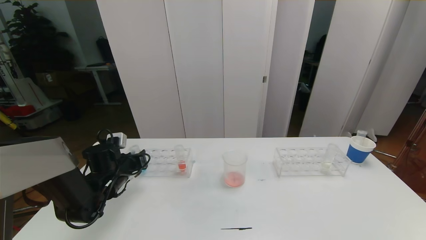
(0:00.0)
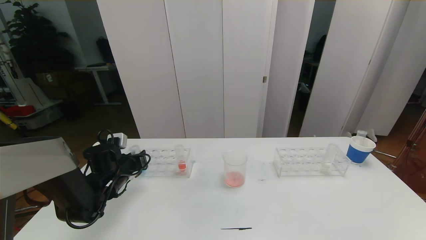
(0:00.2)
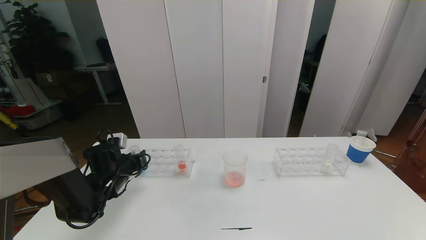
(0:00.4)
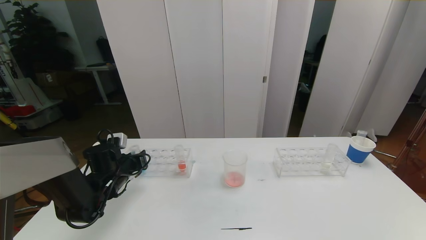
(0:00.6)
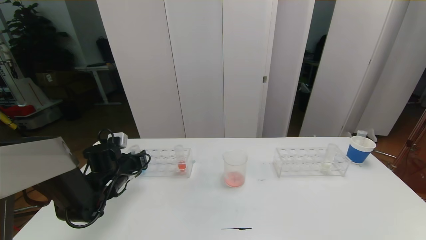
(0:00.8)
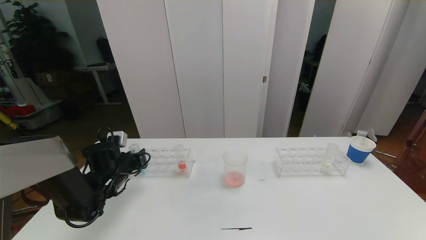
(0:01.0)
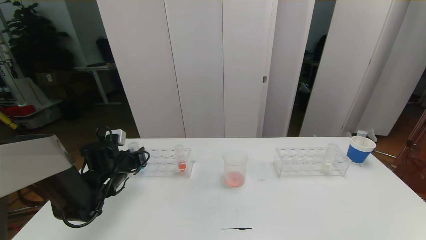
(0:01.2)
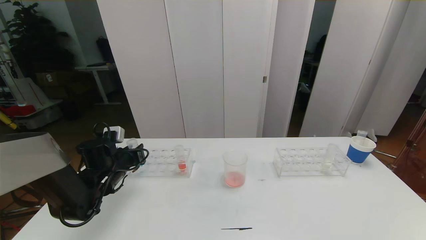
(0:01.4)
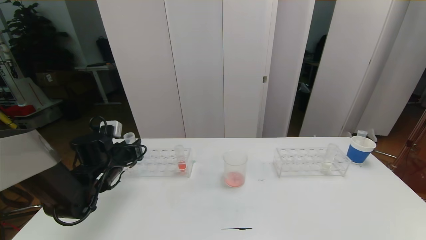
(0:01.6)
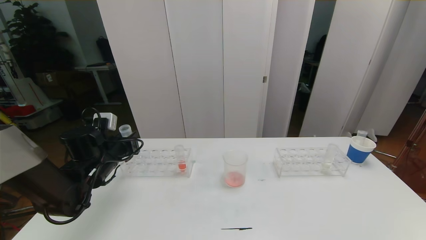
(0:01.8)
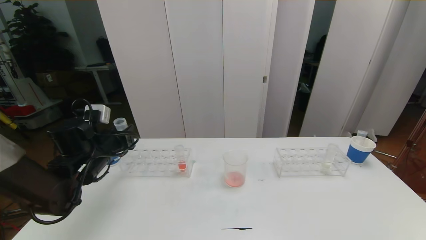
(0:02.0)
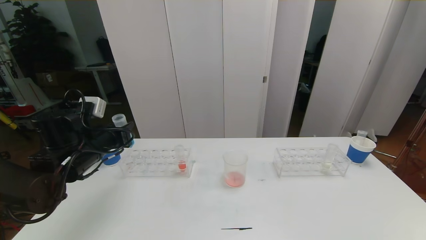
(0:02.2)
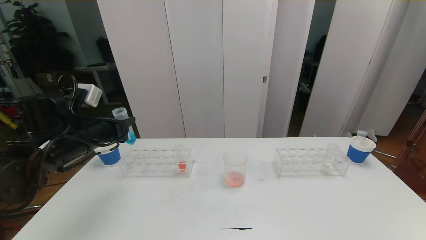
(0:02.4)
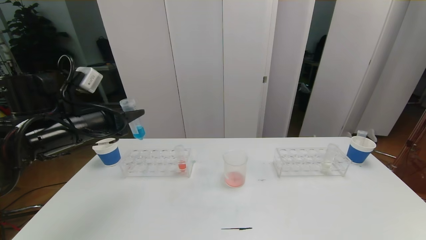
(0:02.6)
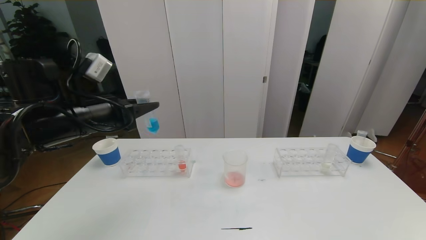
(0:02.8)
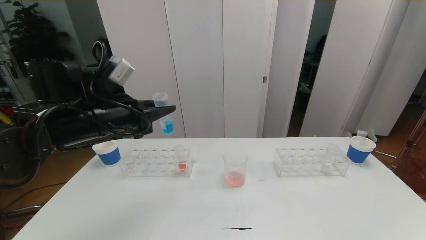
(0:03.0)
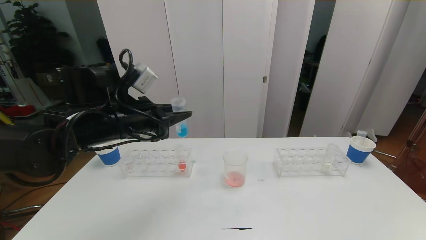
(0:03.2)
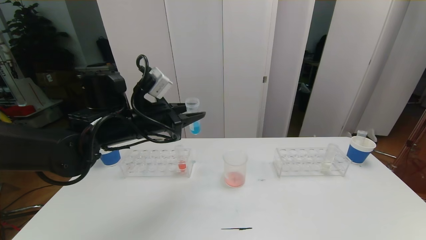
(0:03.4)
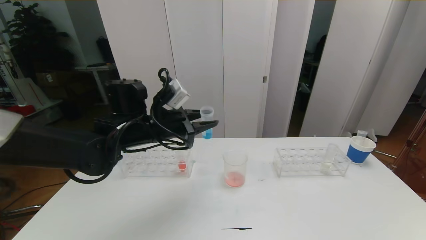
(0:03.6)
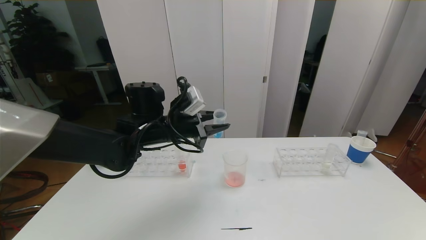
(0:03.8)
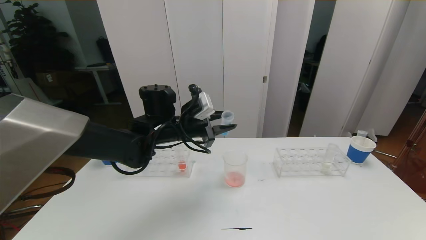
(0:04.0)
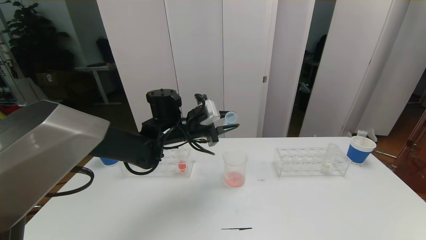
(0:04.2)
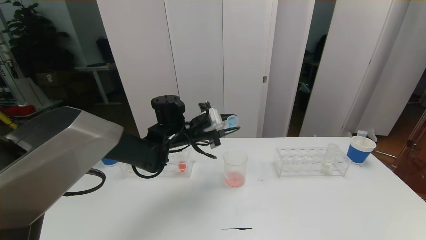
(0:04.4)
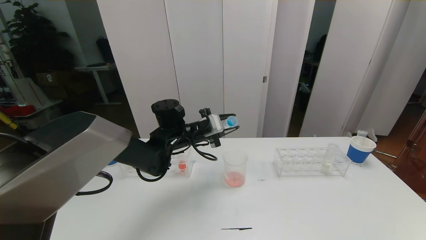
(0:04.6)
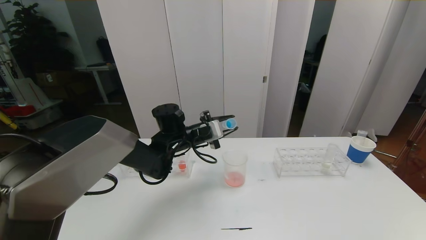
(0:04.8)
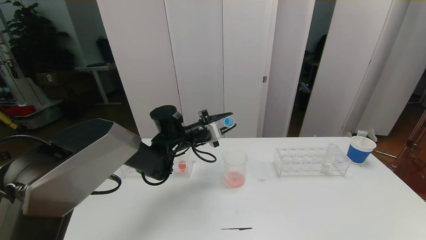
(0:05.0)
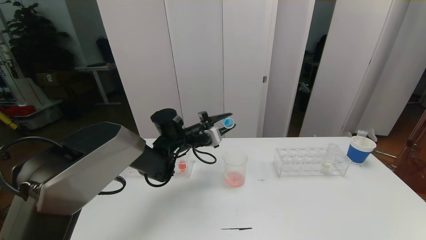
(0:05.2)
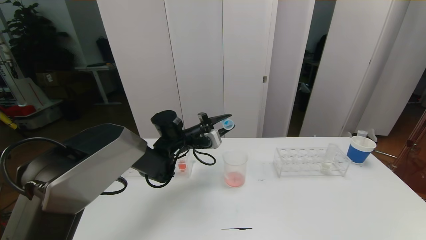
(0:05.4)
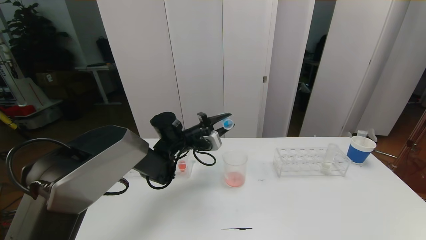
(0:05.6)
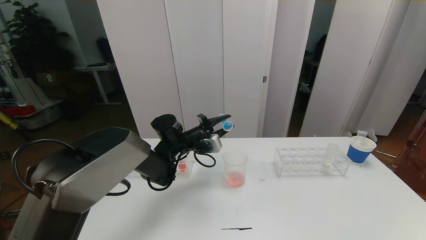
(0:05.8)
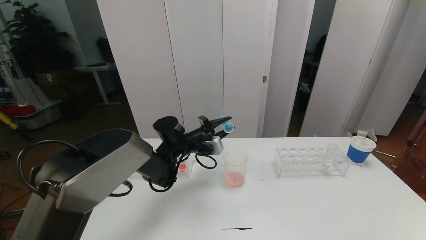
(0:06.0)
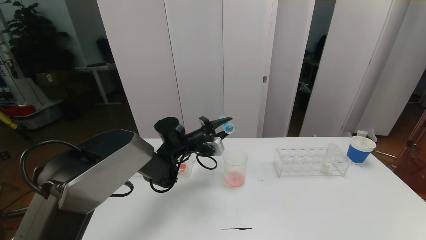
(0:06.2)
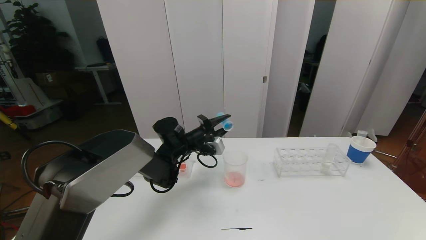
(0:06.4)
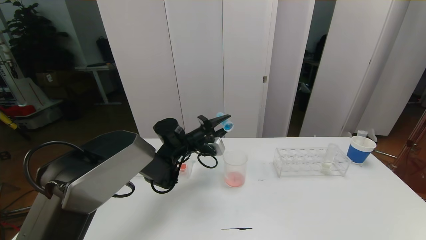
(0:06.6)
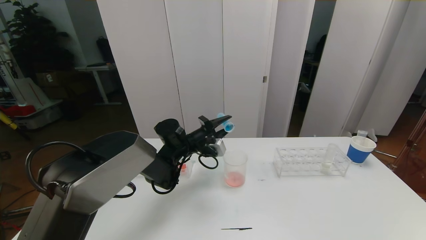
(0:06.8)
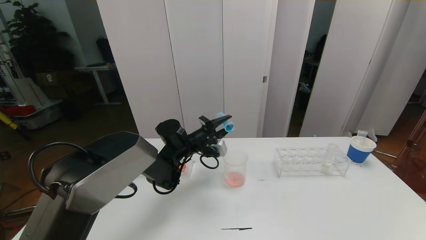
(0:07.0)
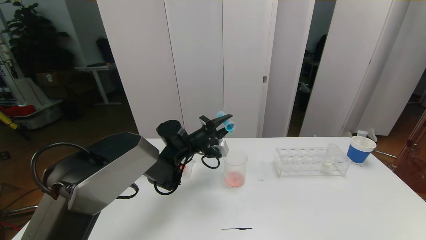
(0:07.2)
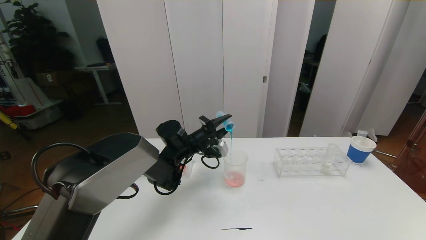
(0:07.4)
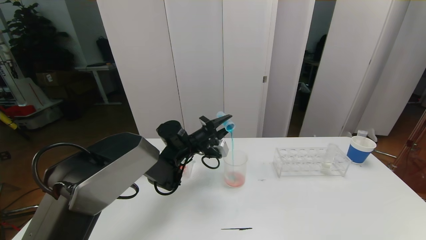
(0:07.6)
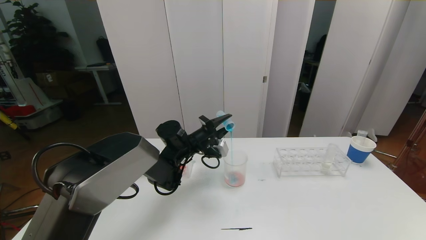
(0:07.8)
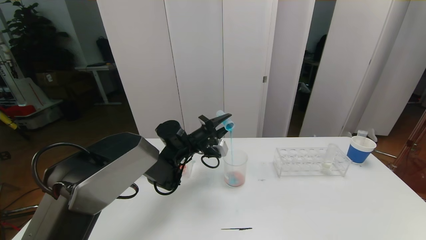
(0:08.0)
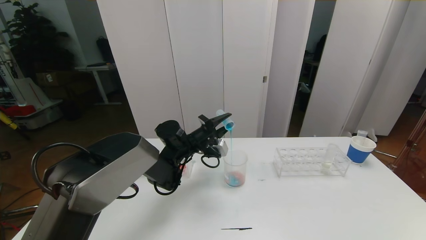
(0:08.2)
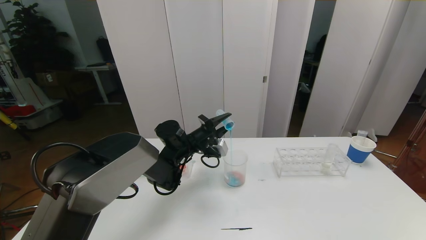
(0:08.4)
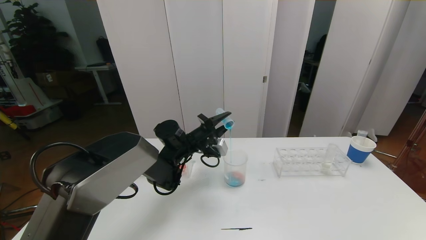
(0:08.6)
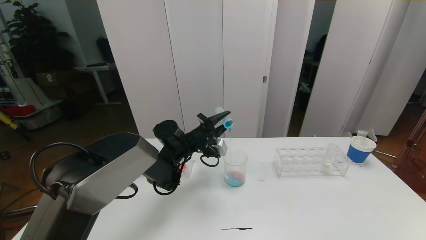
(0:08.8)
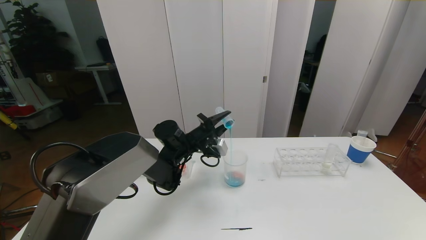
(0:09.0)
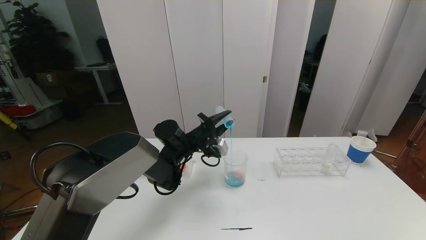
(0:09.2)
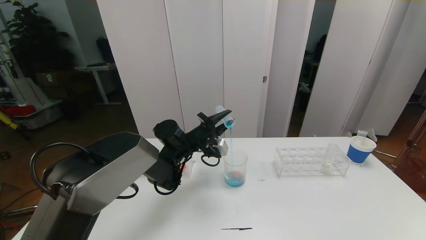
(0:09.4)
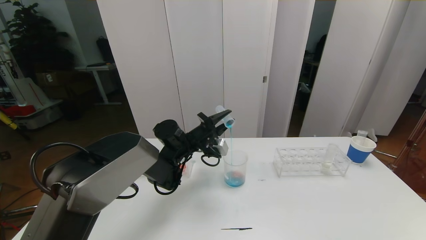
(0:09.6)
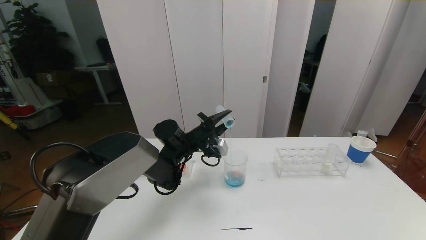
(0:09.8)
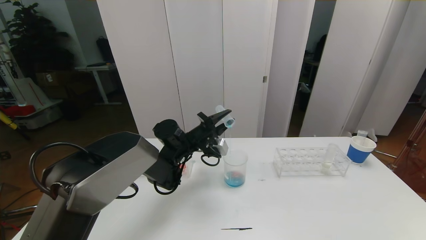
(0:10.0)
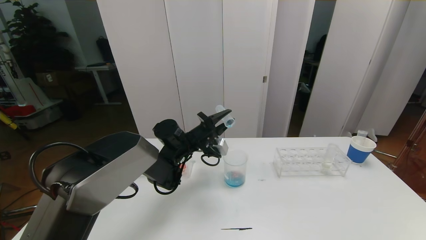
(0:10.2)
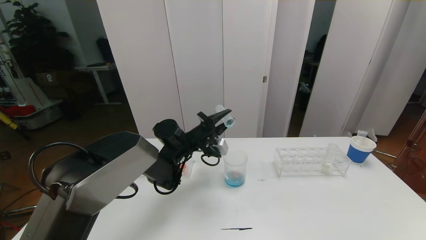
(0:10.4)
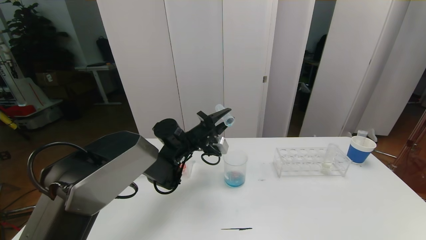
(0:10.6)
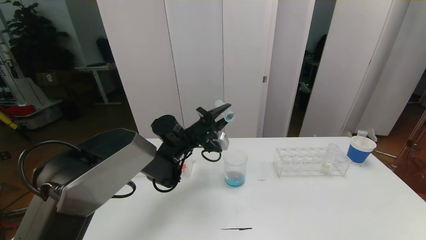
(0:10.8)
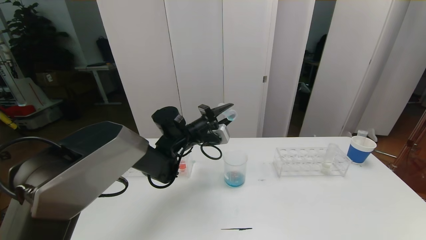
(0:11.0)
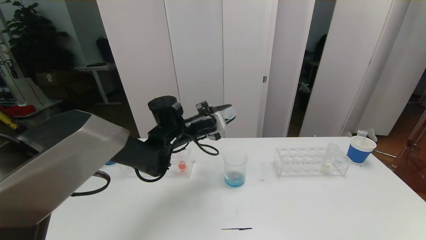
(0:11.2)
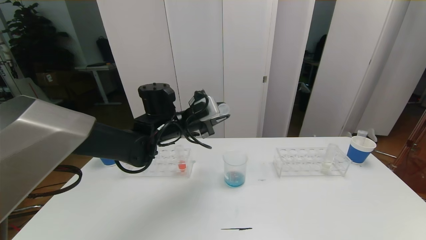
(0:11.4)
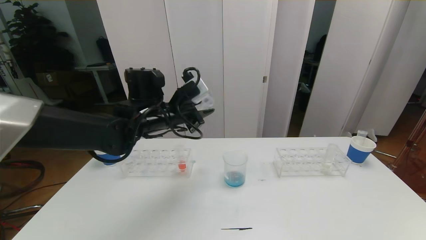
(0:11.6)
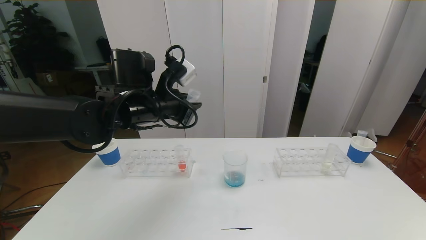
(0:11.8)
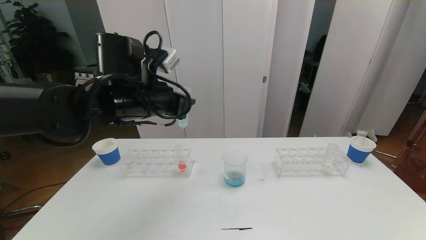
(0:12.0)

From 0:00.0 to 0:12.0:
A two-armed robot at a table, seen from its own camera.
Task of the whole recording: pick up the test tube with red pigment the test tube with blue pigment and the test tube with white pigment by grippers and pour them into the beaker.
From 0:00.0 to 0:01.6: The grippers make only small movements.
From 0:01.6 to 0:03.0: The left gripper moves upward and to the right, about 15 cm.
From 0:03.0 to 0:04.4: The left gripper moves to the right, forward and downward, about 20 cm.
From 0:04.4 to 0:06.0: The left gripper goes about 5 cm downward.
From 0:06.0 to 0:07.6: The grippers make only small movements.
From 0:07.6 to 0:09.0: Neither gripper changes place.
From 0:09.0 to 0:10.4: Both grippers stay about where they are.
From 0:10.4 to 0:12.0: The left gripper shifts approximately 20 cm upward and backward.

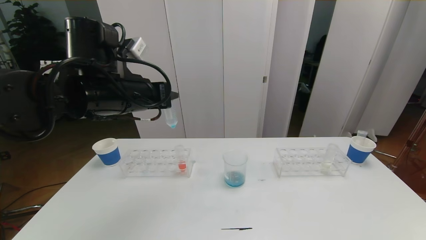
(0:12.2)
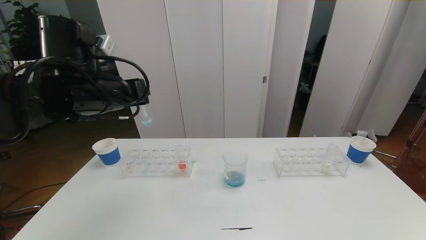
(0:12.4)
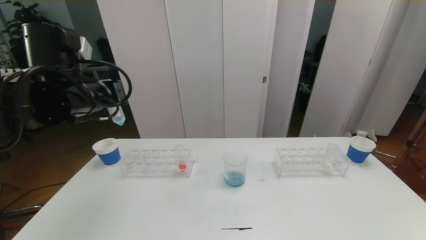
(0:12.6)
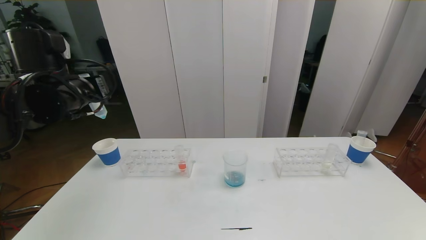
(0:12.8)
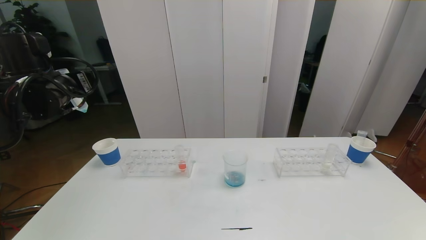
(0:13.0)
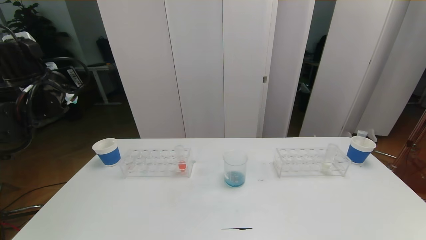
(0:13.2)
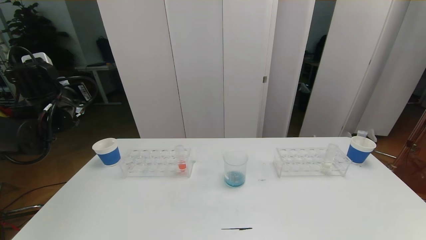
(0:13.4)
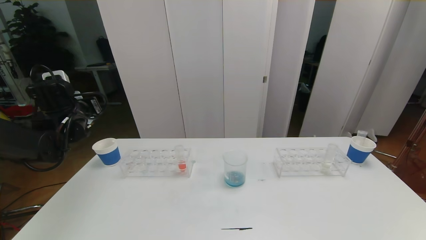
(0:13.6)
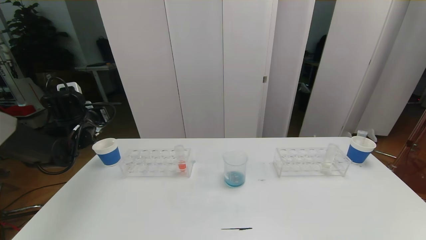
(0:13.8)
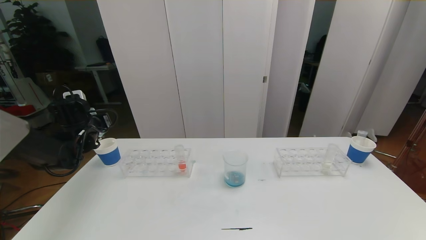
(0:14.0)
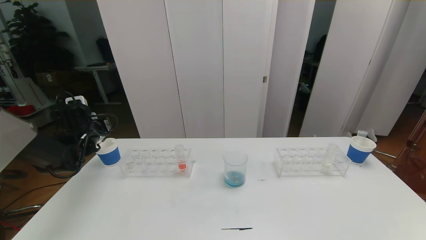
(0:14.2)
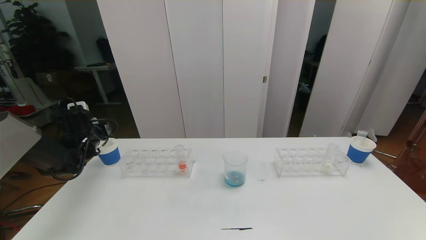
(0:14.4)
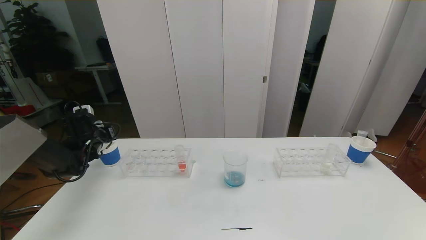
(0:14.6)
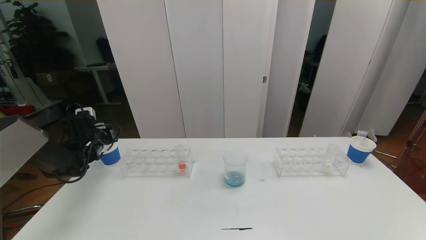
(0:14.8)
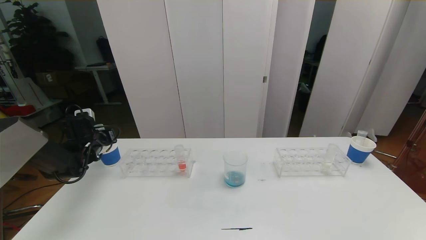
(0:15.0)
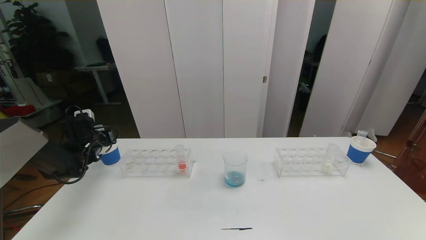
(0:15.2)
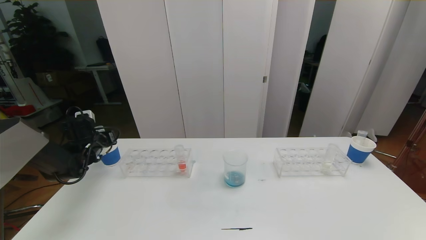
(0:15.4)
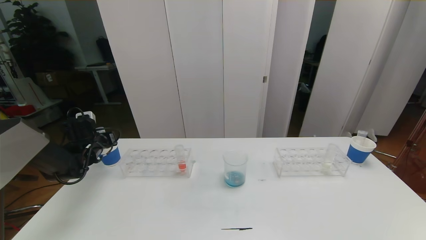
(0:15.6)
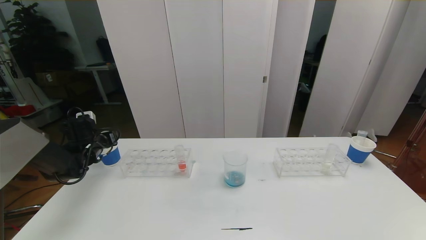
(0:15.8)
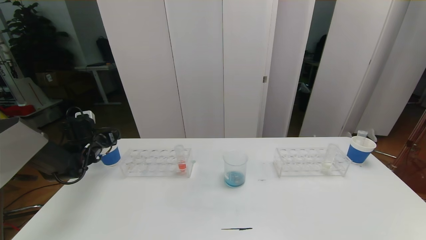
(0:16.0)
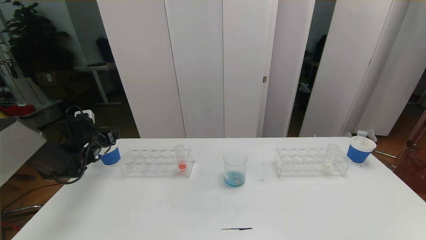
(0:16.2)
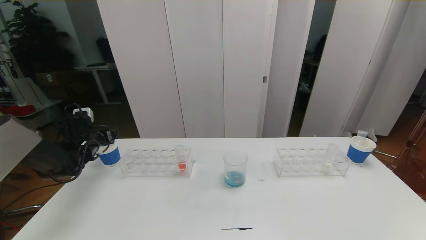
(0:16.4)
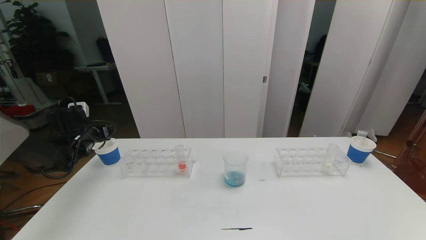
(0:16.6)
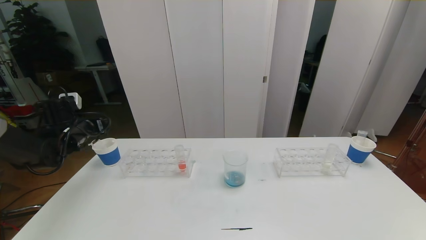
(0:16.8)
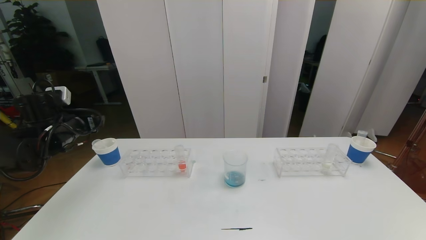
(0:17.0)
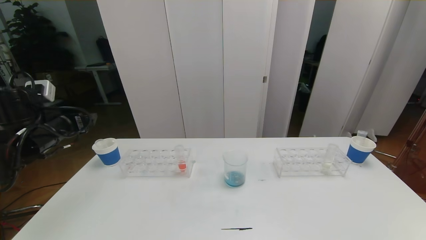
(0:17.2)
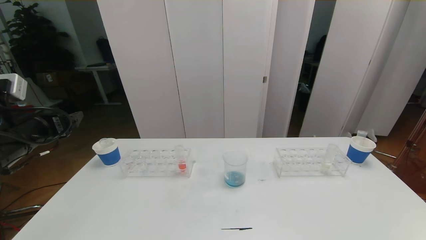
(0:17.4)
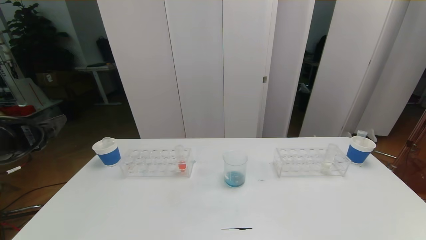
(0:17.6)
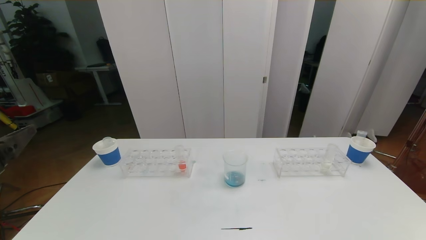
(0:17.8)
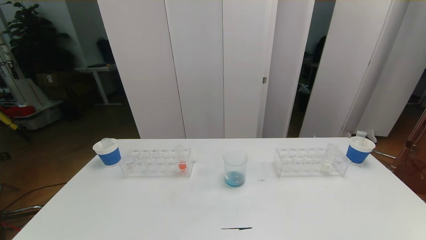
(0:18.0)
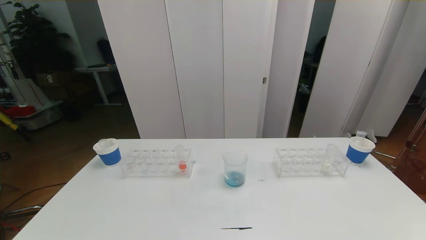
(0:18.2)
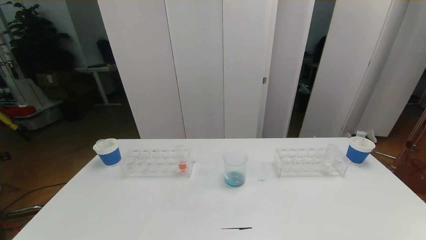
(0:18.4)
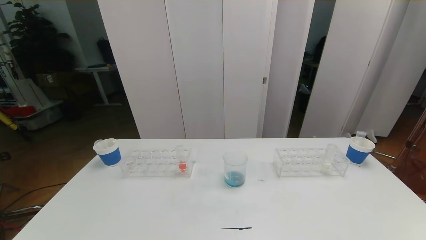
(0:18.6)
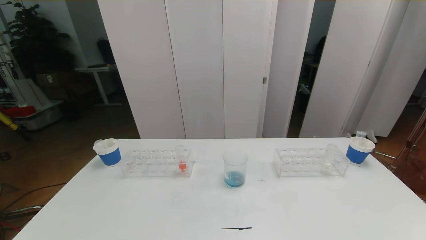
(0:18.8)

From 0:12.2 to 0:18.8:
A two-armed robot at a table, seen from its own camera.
Task of the whole recording: pick up the test tube with red pigment the test tube with blue pigment and the test tube with white pigment by grippers and pour them into the beaker.
From 0:12.2 to 0:13.8: The left gripper shifts some 25 cm to the left, downward and forward.
From 0:13.8 to 0:15.4: The left gripper is displaced downward by about 10 cm.
From 0:15.4 to 0:17.2: The left gripper is displaced upward and backward by about 15 cm, and opens.
From 0:17.2 to 0:18.8: The left gripper is displaced backward by some 35 cm.
